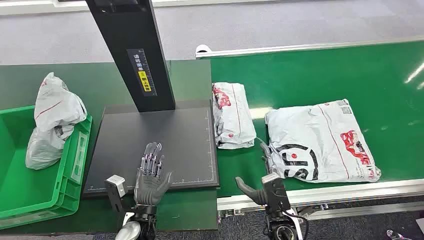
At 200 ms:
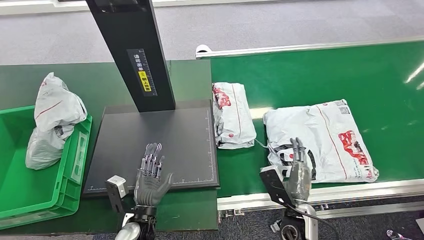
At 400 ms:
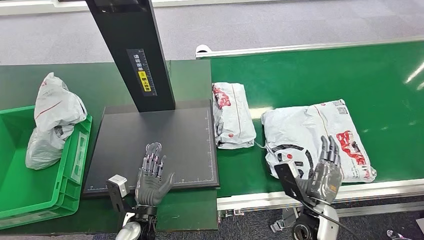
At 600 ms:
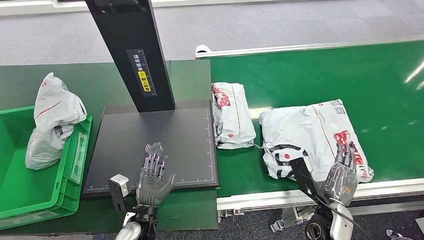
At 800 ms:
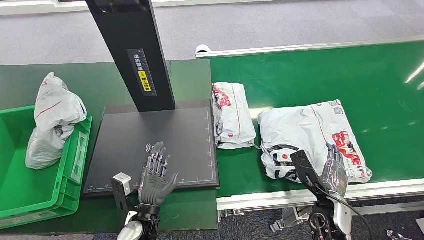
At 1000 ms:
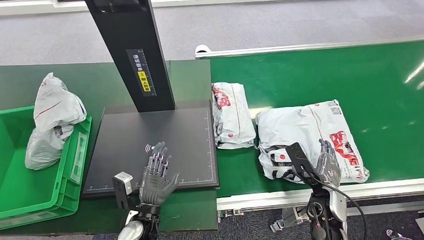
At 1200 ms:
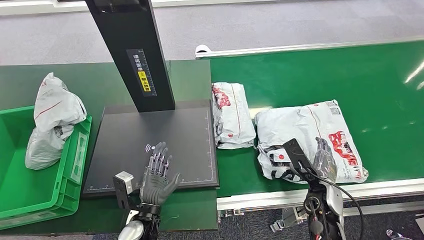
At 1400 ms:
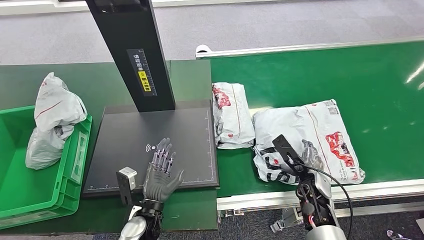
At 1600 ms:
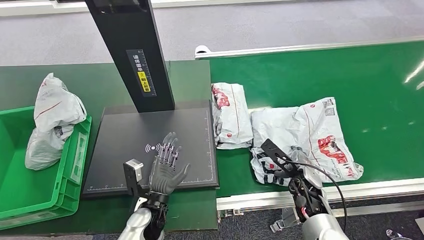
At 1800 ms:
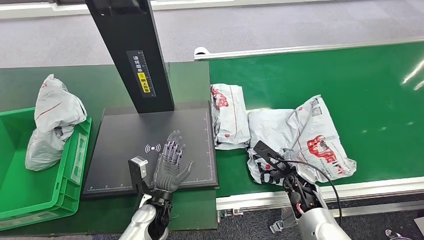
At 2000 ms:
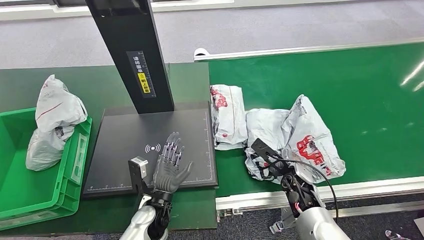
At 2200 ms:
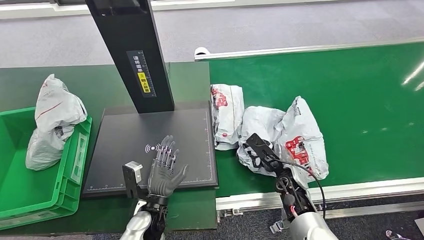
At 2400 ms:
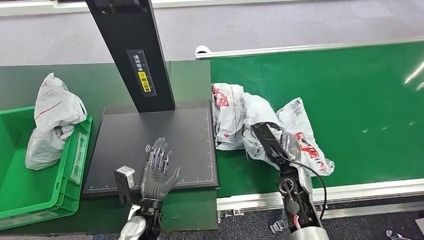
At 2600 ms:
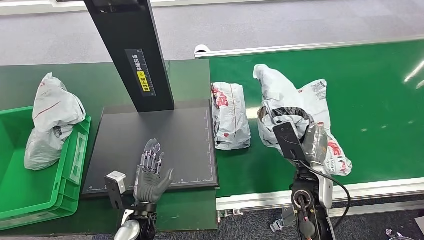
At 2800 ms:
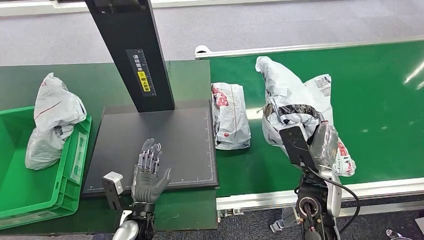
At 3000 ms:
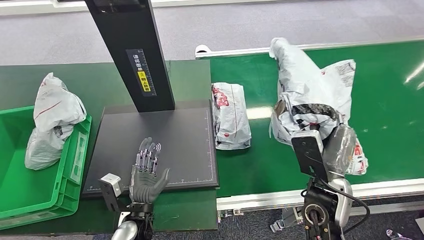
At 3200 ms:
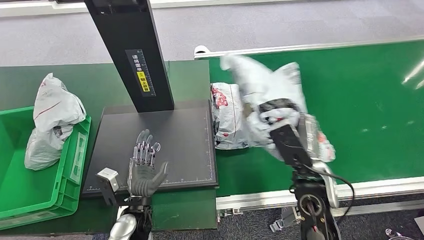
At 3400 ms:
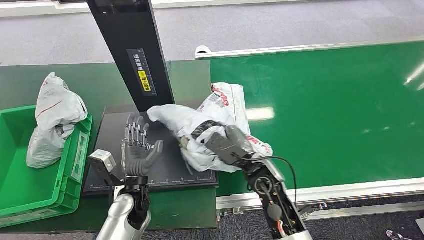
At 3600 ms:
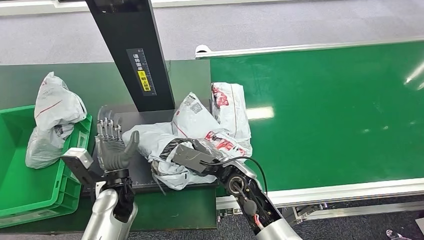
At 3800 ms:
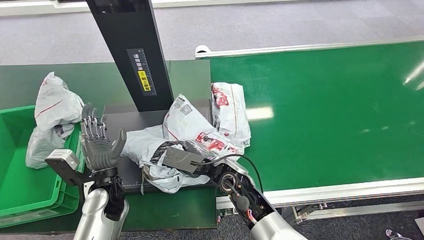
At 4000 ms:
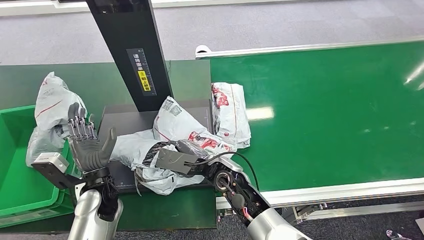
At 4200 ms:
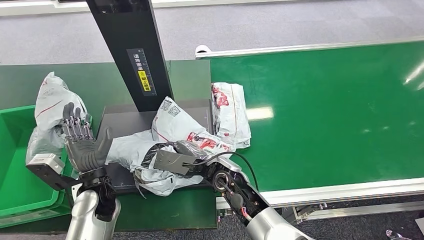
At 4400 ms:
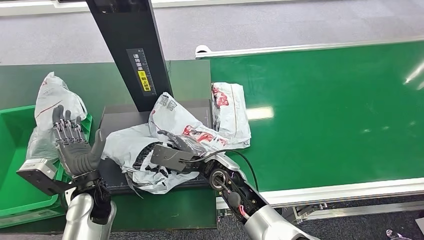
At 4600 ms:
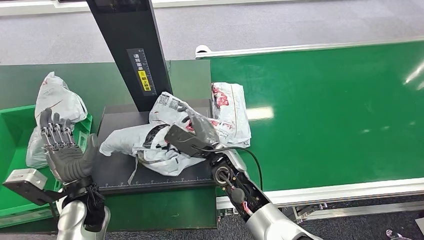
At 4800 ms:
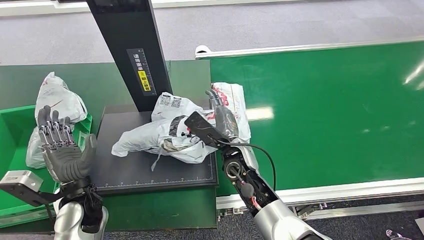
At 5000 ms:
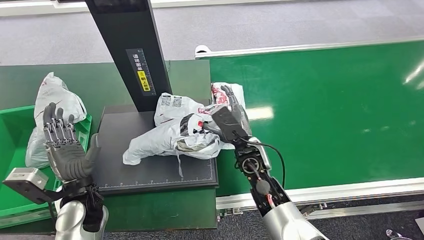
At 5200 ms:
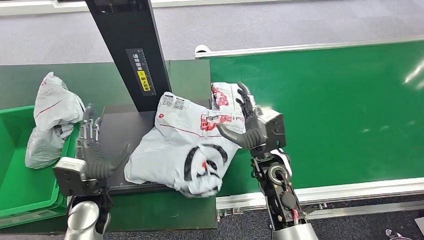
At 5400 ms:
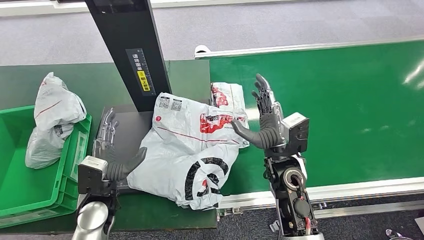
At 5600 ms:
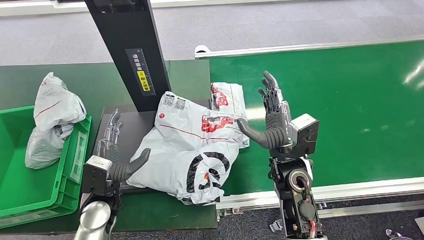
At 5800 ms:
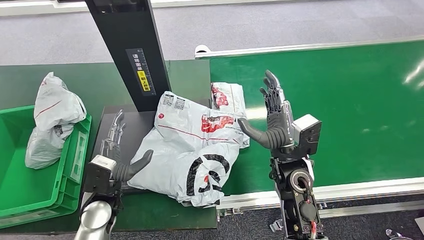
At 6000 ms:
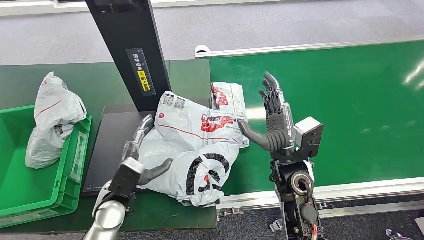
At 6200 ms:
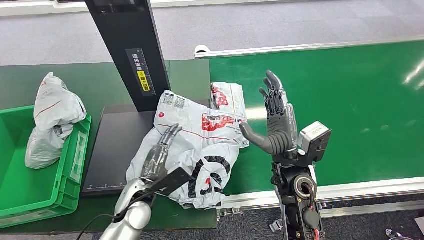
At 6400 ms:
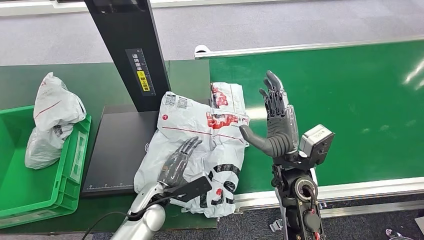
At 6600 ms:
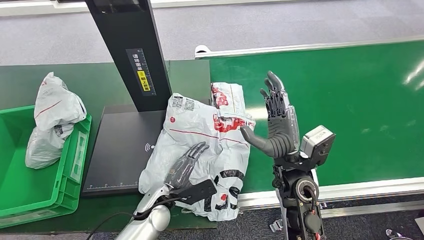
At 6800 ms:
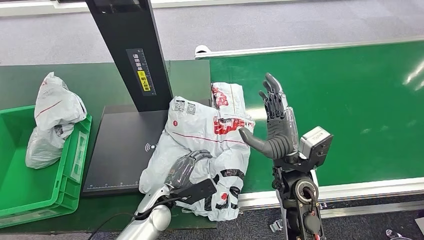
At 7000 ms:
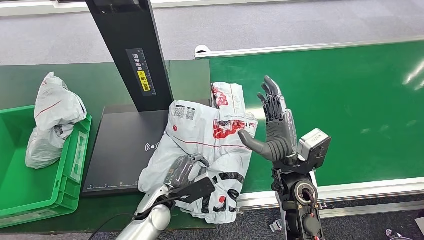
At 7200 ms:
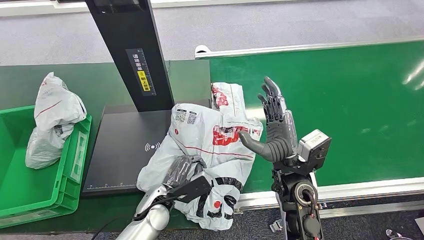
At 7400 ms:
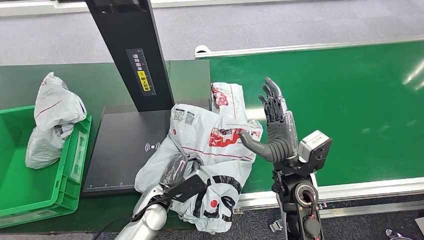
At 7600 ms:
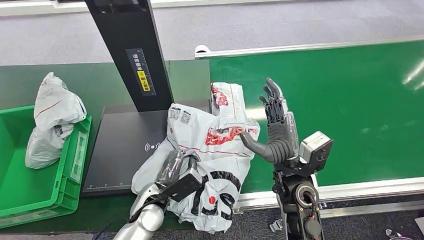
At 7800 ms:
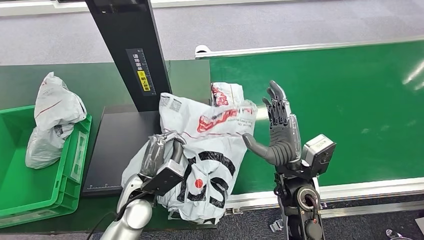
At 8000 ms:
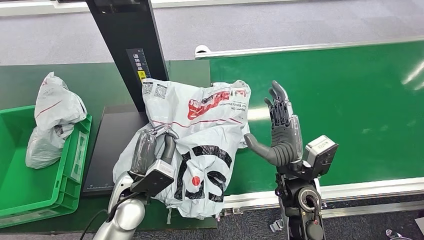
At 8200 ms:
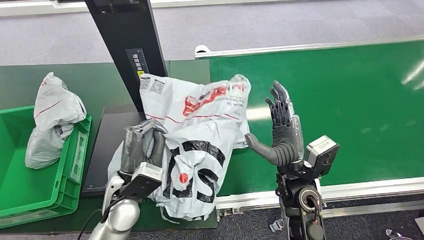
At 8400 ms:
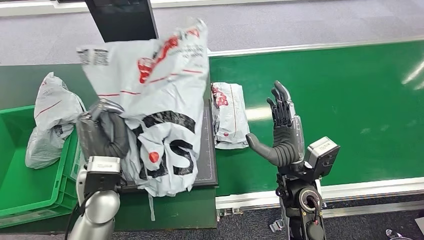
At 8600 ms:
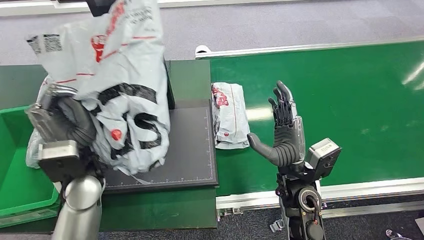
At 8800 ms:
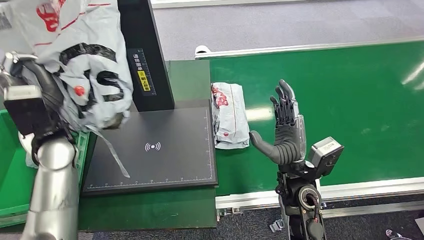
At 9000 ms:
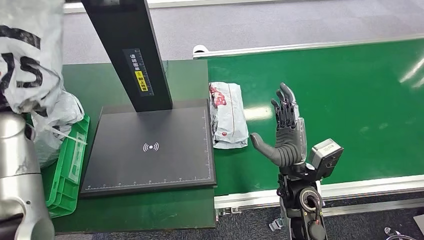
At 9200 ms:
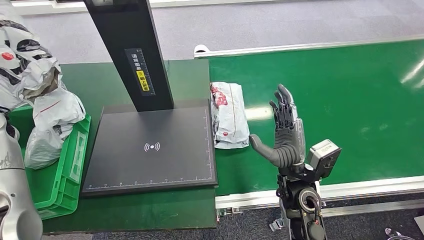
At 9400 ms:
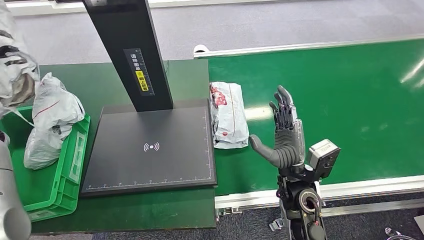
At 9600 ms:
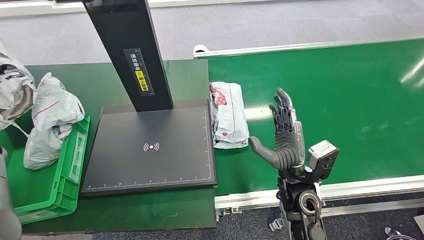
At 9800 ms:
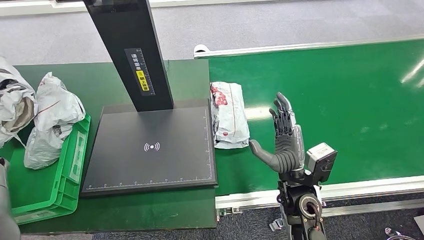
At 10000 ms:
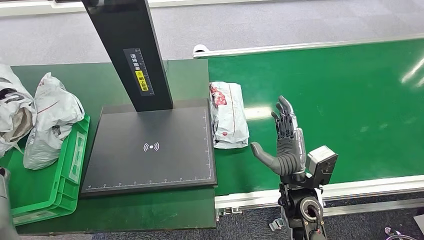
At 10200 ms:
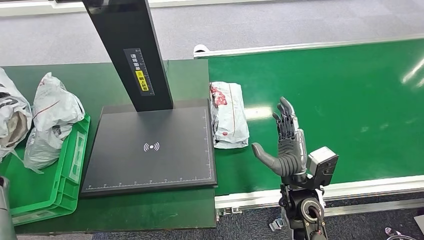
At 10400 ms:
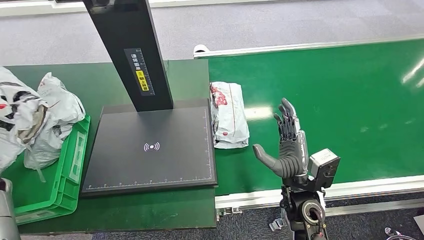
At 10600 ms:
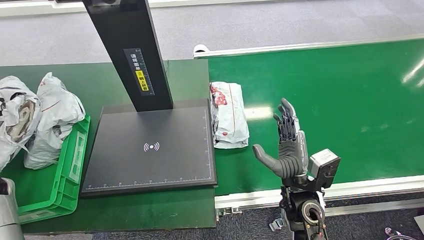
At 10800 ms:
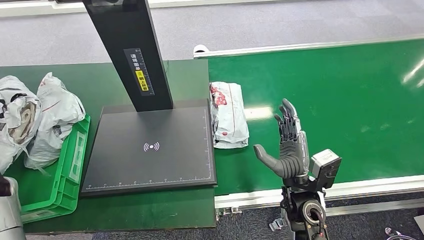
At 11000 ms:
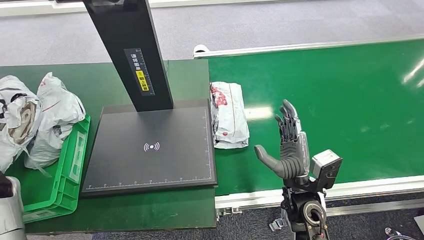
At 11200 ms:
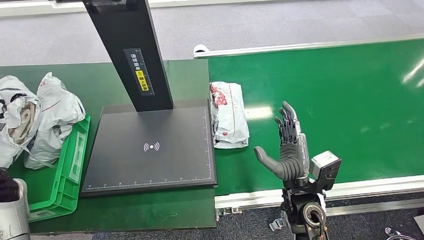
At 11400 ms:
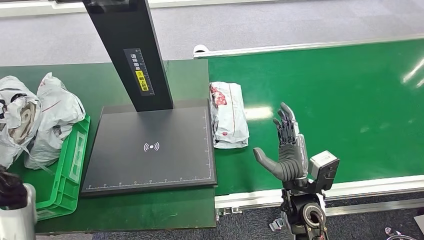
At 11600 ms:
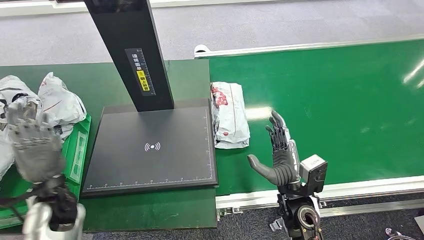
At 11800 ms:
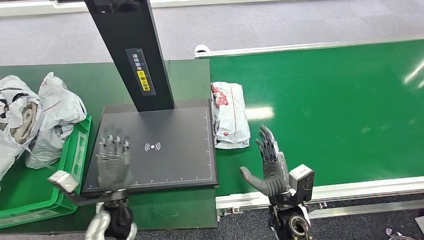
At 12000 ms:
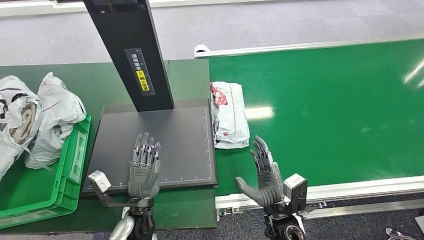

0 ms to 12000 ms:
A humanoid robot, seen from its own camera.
Step, 0 ms to 3000 ms: Pick up the package from the conveyor belt.
Step, 3200 ms to 6000 ms: Place the package onto the inbound machine.
Step, 6200 ms to 8200 ms: Pick up the package from the inbound machine.
Step, 8600 ms to 12000 ms: Place the package into the parcel locker.
1600 ms to 3000 ms: The right hand shifts approximately 15 cm upward and backward.
6000 ms to 7600 ms: The left hand travels to the right by about 5 cm.
9000 ms to 10400 ms: The left hand is displaced downward, to the left and backward by about 20 cm.
10400 ms to 12000 ms: The right hand goes approximately 10 cm downward and backward. The left hand goes approximately 40 cm to the right.
